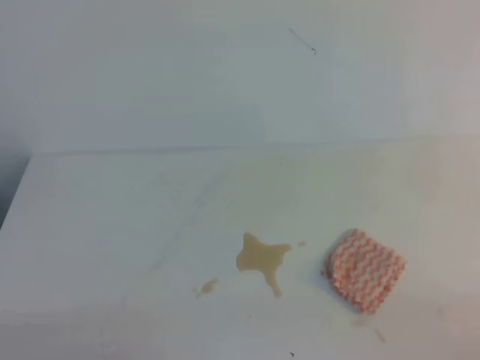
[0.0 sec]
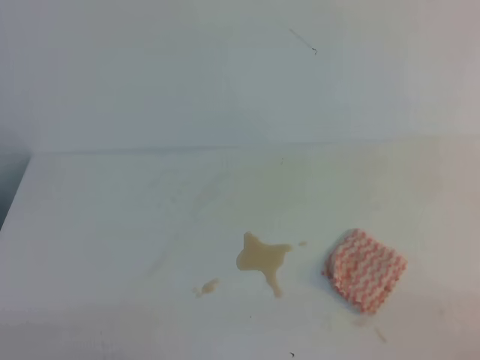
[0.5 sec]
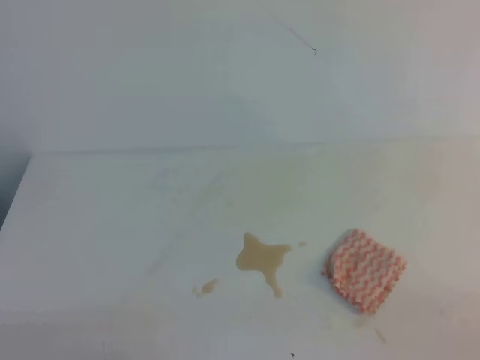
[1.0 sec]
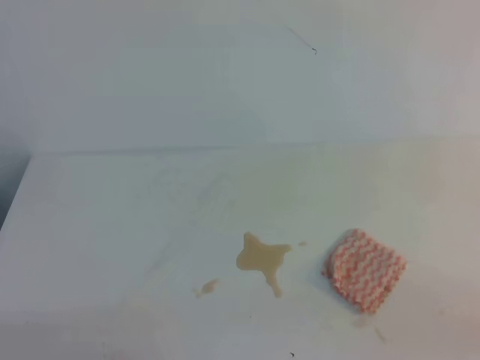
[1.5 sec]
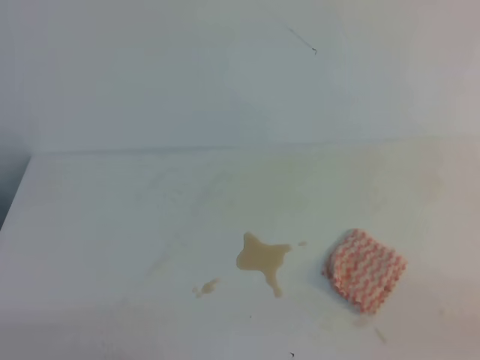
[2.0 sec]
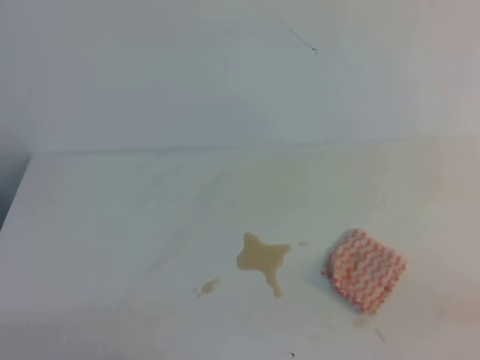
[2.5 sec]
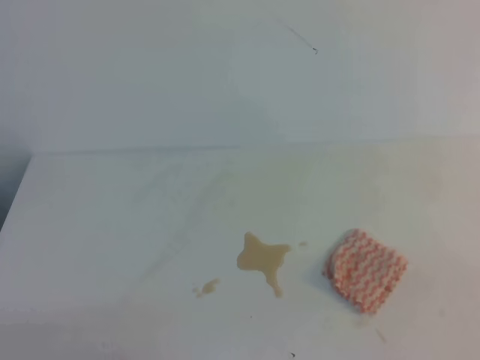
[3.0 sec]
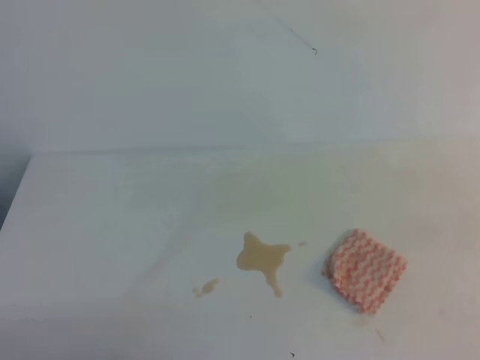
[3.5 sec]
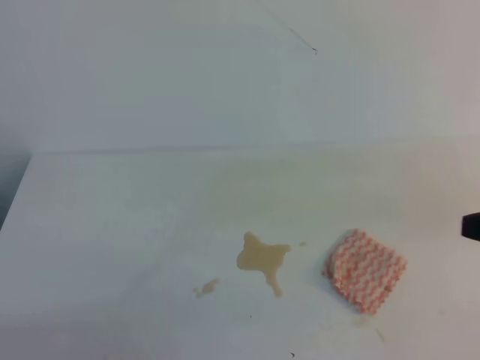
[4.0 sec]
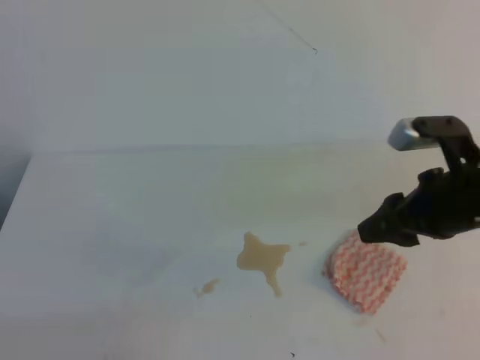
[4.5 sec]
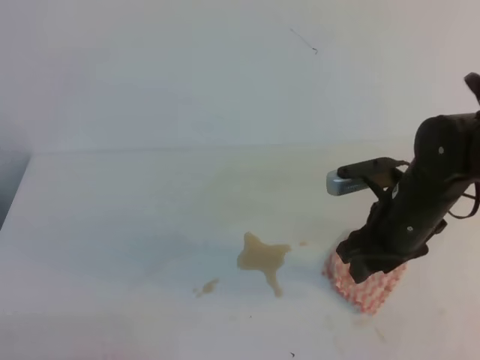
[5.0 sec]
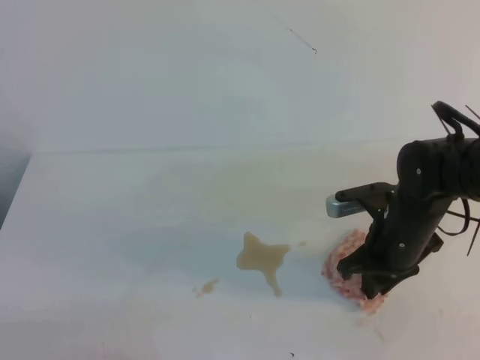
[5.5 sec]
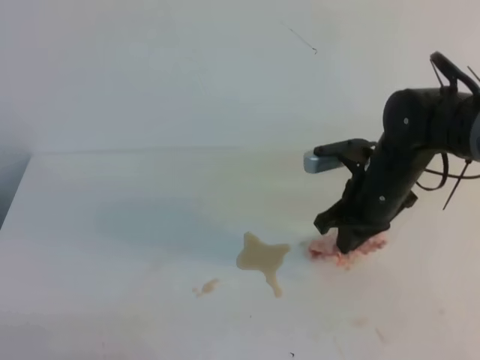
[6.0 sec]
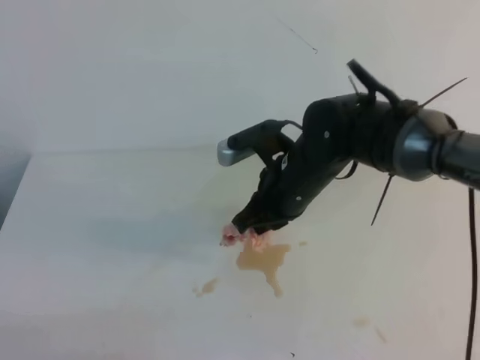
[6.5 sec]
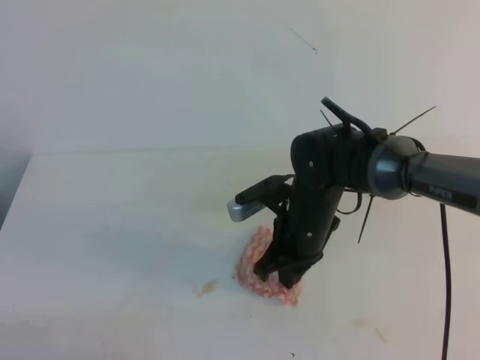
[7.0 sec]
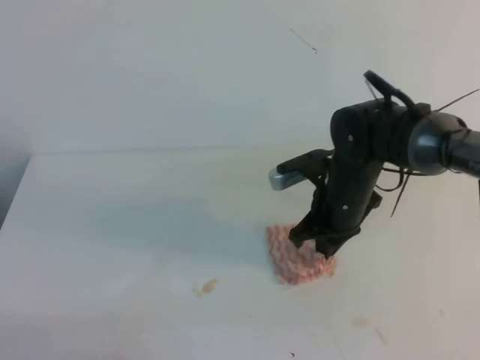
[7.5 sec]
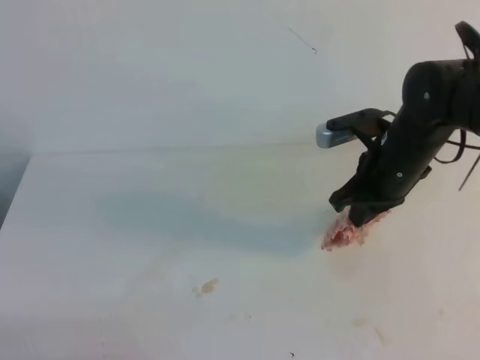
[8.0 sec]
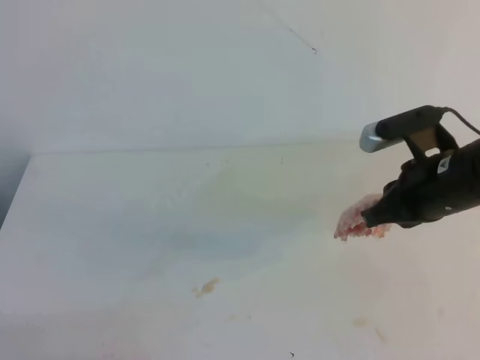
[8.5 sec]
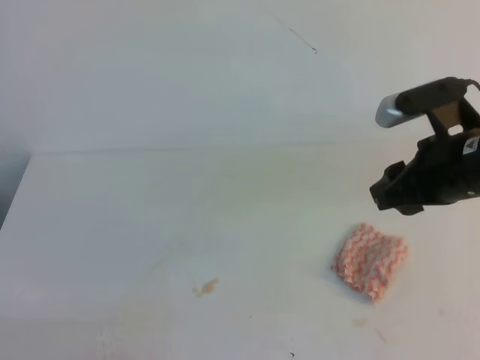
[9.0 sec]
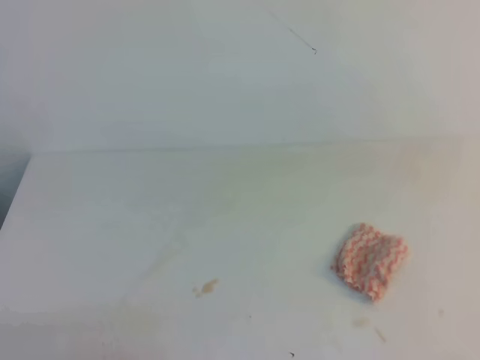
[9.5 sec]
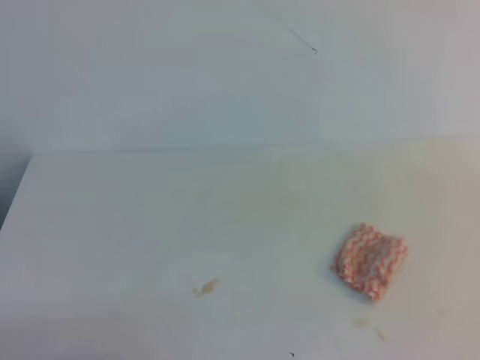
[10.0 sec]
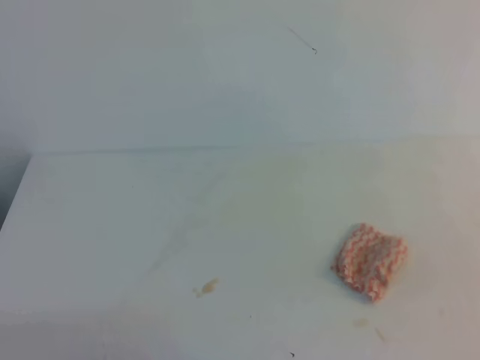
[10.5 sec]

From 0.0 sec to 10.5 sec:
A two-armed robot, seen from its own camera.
From 4.0 sec to 6.5 sec: The right gripper goes approximately 30 cm to the left and forward, and opens, then closes again.
From 6.5 sec to 8.5 sec: The right gripper goes approximately 15 cm to the right.
From 8.5 sec to 10.5 sec: The right gripper shifts some 25 cm backward and to the right, and opens, then closes again.

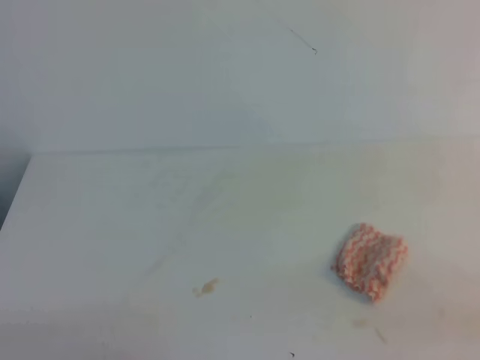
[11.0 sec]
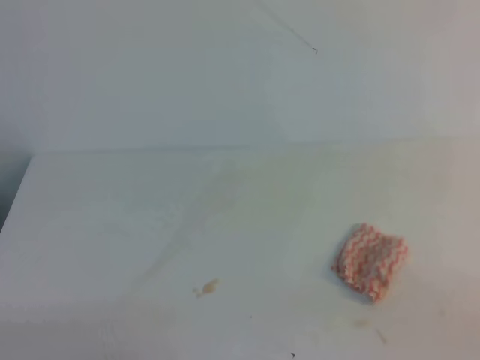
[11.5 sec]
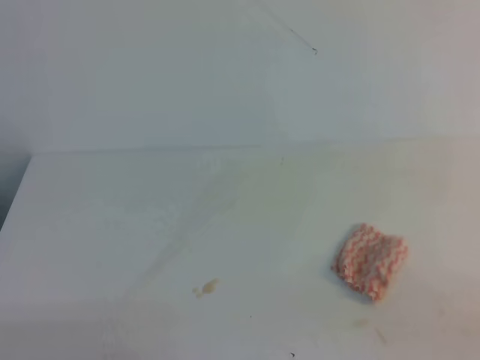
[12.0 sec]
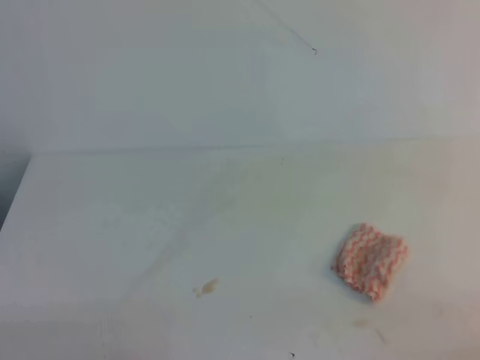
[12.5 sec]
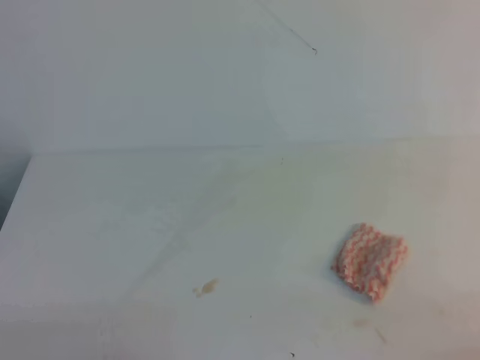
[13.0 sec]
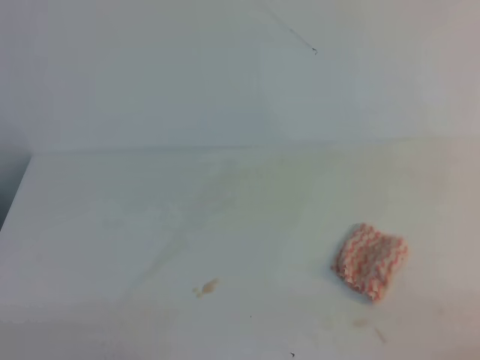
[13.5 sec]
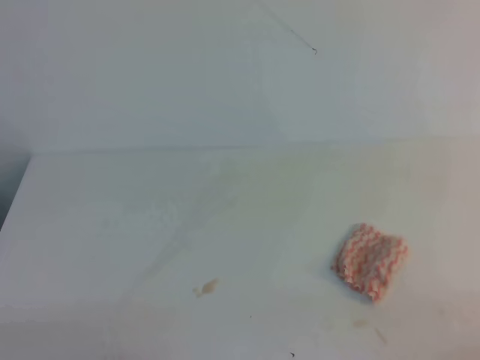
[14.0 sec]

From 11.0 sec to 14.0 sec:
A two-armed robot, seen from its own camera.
From 12.5 sec to 14.0 sec: Both grippers stay about where they are.
